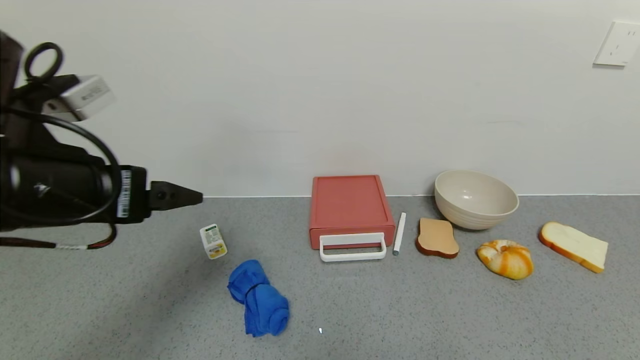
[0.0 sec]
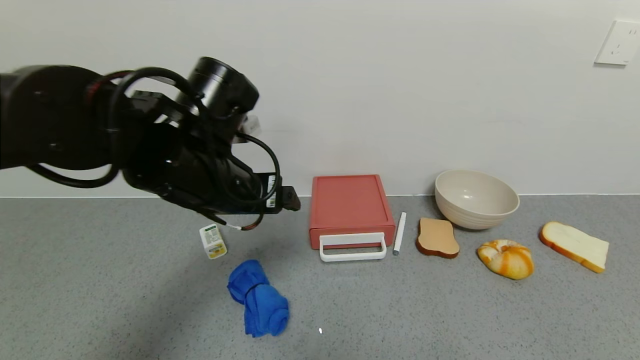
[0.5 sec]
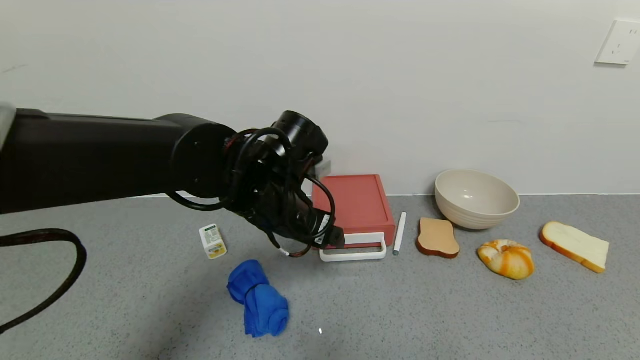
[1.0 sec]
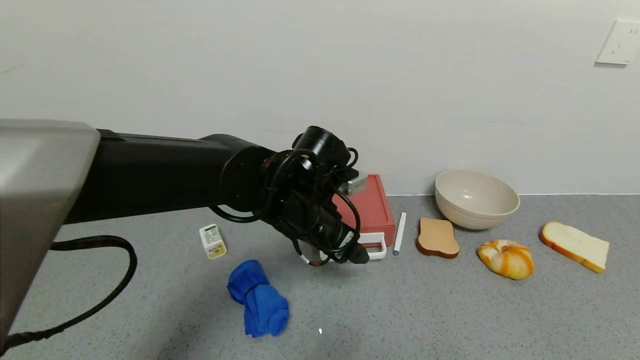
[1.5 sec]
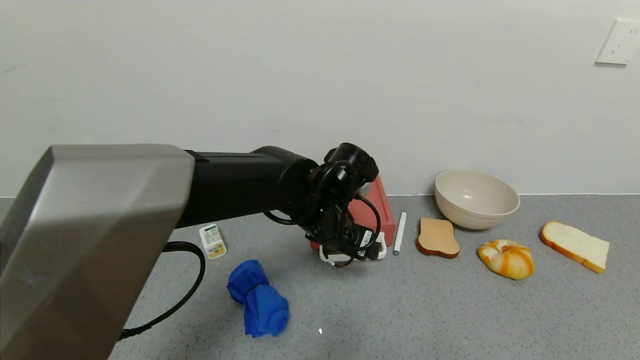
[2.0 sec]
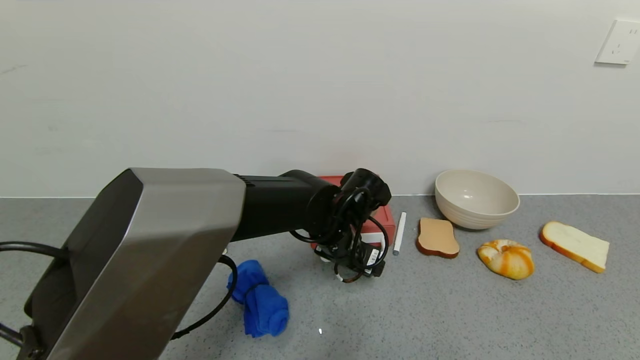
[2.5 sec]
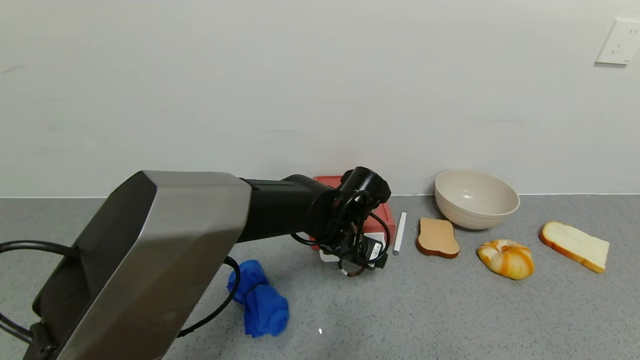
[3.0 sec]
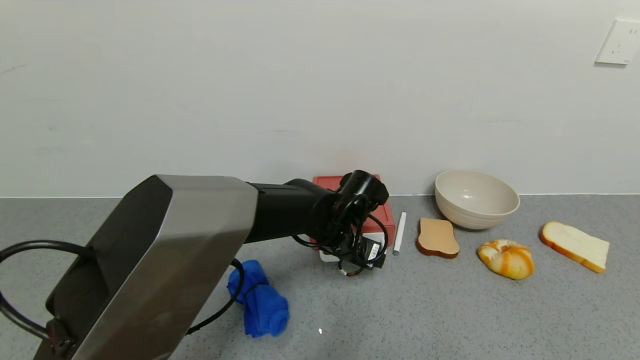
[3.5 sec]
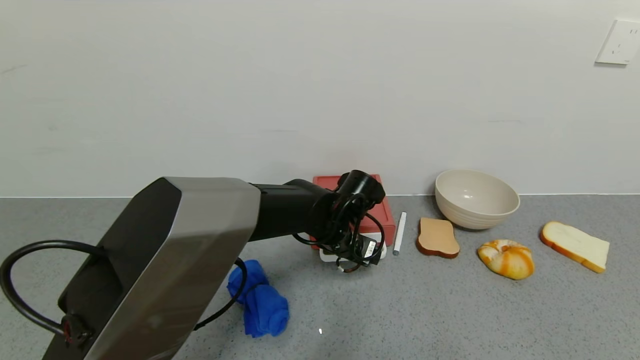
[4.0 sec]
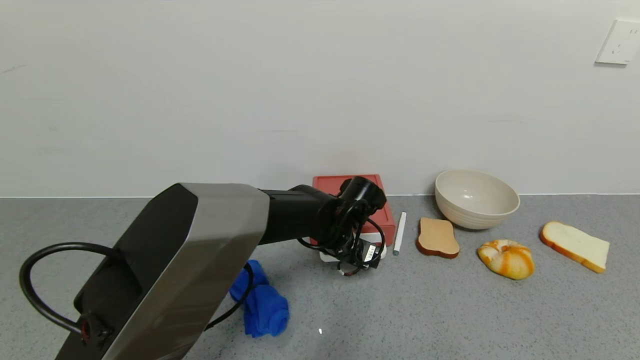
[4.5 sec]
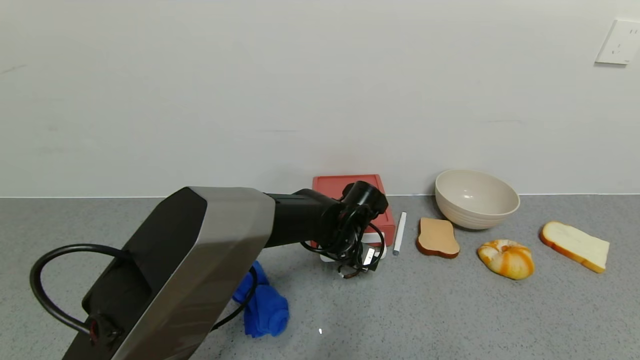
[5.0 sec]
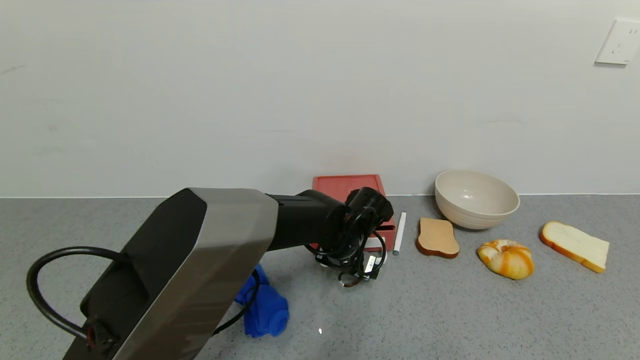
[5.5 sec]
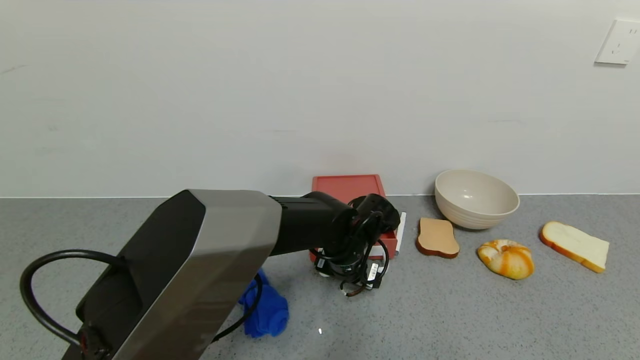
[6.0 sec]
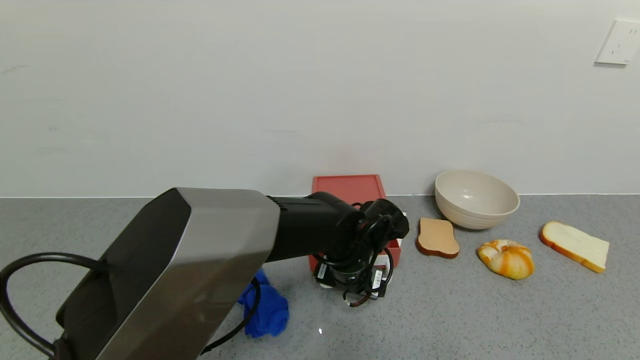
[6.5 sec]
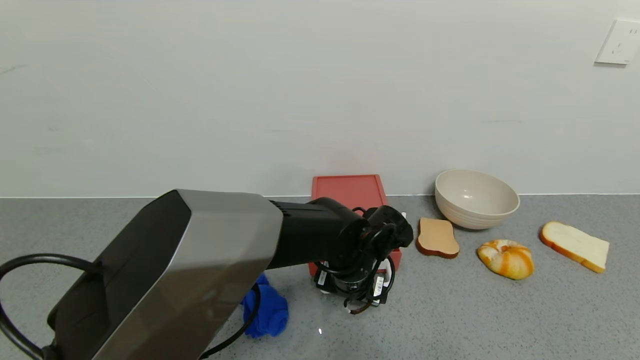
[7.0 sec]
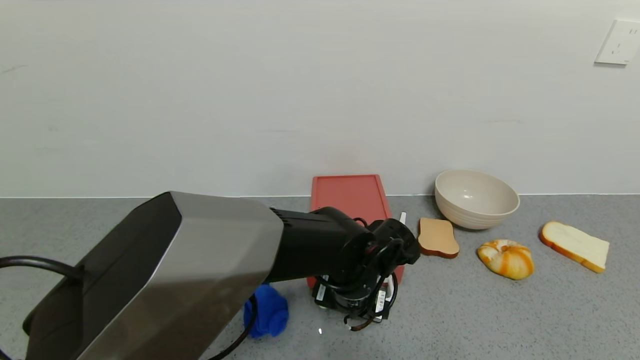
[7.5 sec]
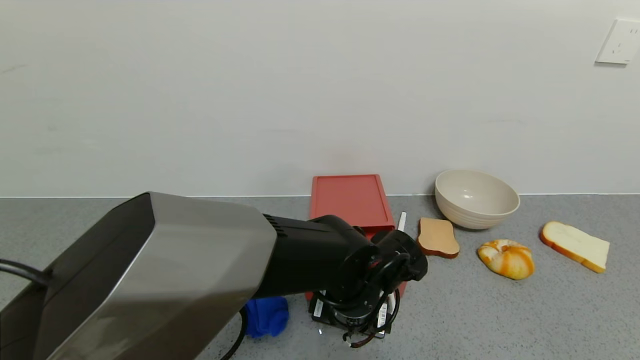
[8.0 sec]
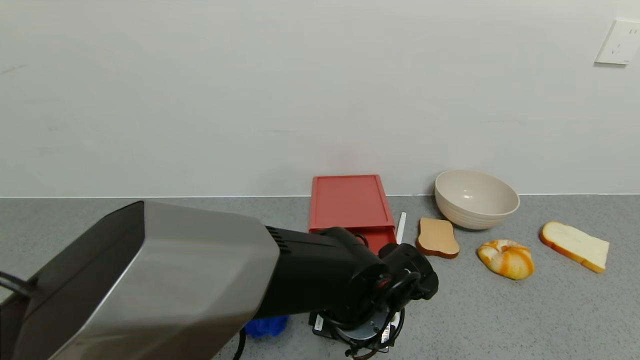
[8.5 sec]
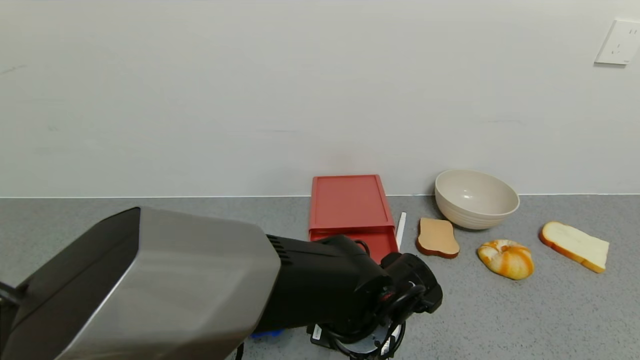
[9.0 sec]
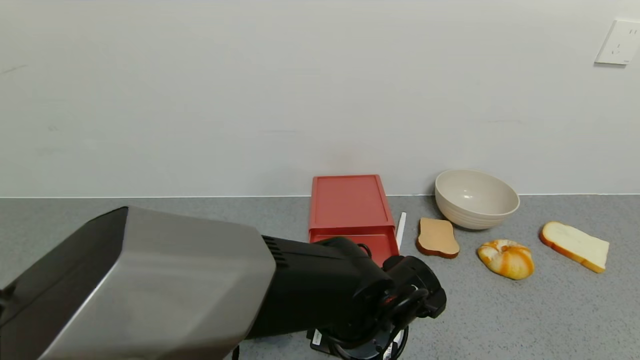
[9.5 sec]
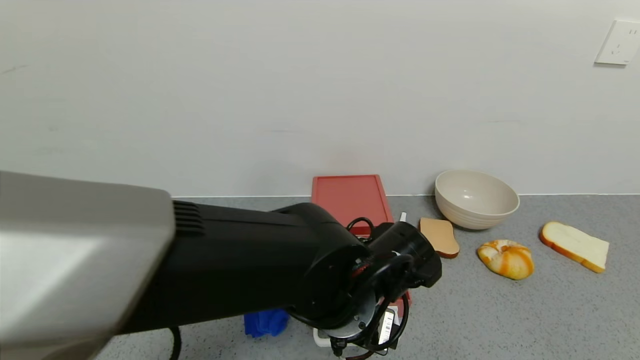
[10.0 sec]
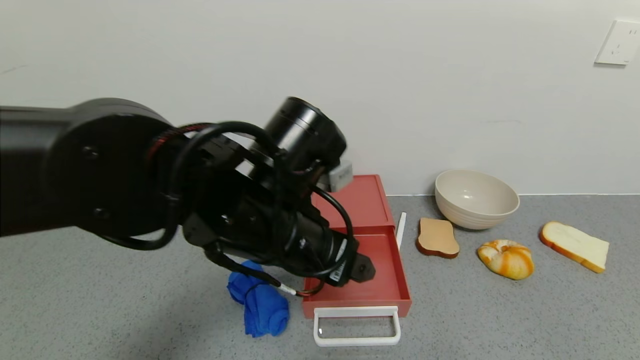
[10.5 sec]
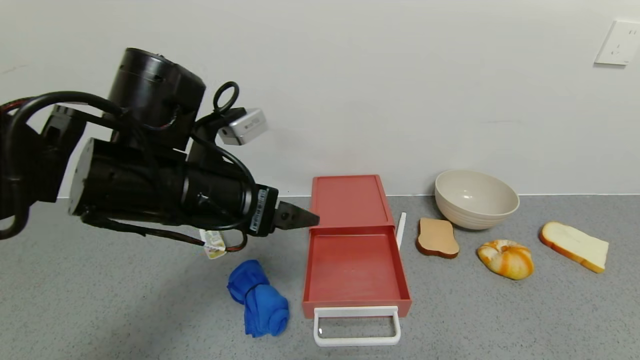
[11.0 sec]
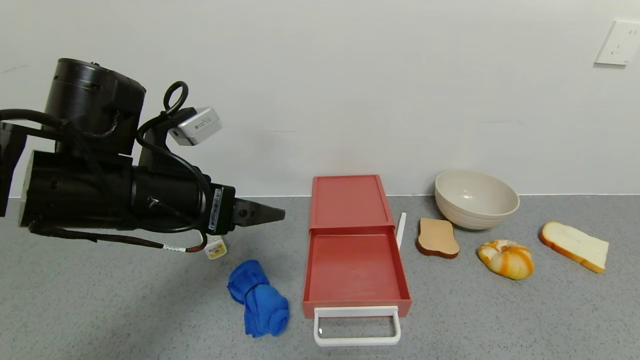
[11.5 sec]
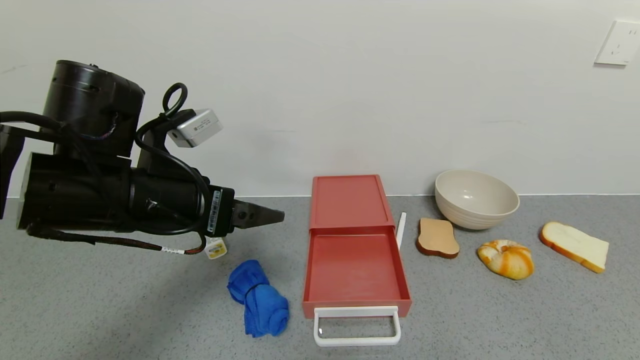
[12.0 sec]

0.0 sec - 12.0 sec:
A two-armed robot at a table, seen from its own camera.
Task of the whole recording: use the gripper to open the drawer and close the red drawer.
Step, 0.0 sec - 10.0 sec: Open the red drawer with the left gripper.
0.0 sec - 2.0 sec: The left gripper travels to the right, forward and downward by some 30 cm.
2.0 sec - 4.0 sec: The left gripper travels downward by approximately 5 cm.
4.0 sec - 6.0 sec: The grippers make only small movements.
6.0 sec - 8.0 sec: The left gripper is displaced backward by approximately 10 cm.
8.0 sec - 10.0 sec: The left gripper shifts by about 5 cm.
10.0 sec - 12.0 sec: The left gripper travels to the left and upward by about 25 cm.

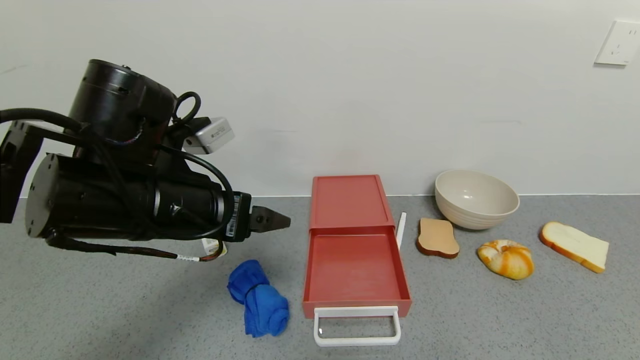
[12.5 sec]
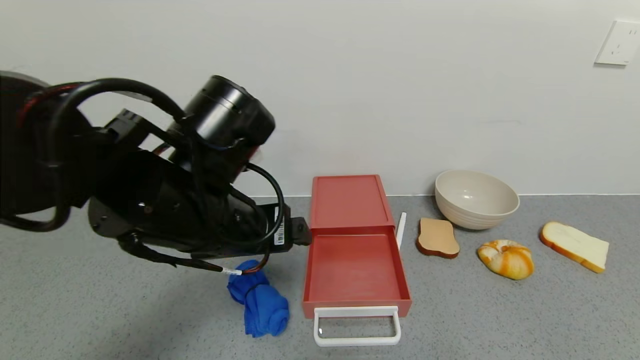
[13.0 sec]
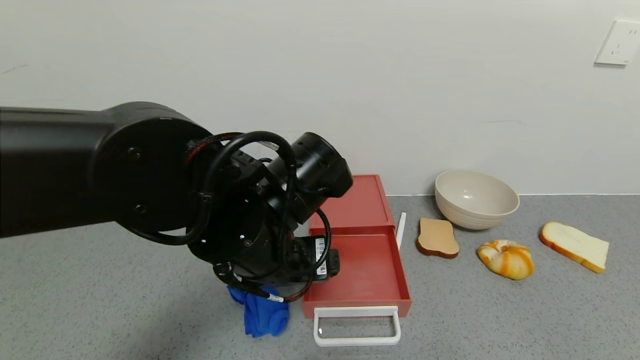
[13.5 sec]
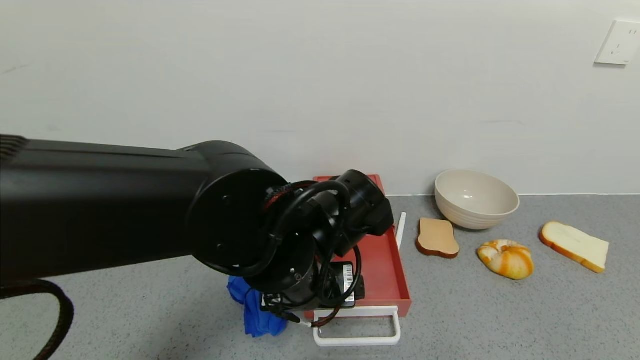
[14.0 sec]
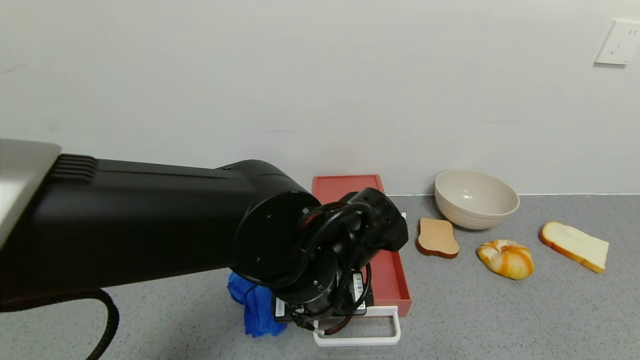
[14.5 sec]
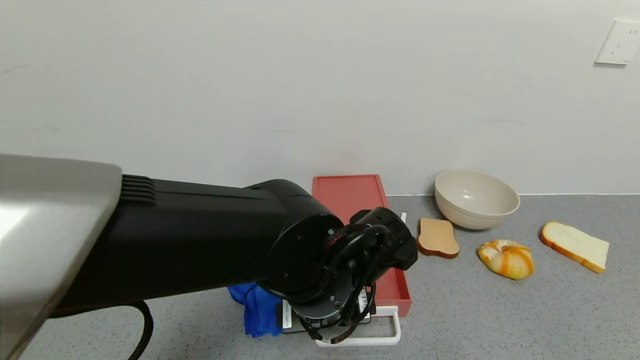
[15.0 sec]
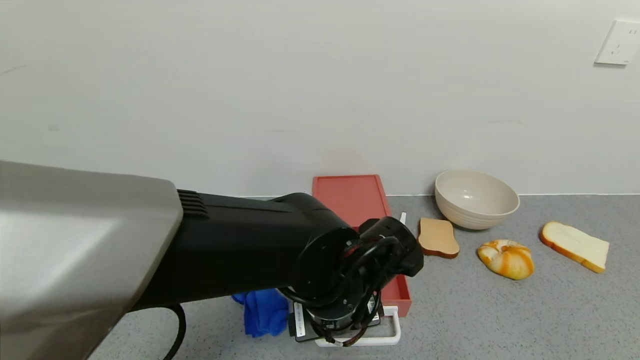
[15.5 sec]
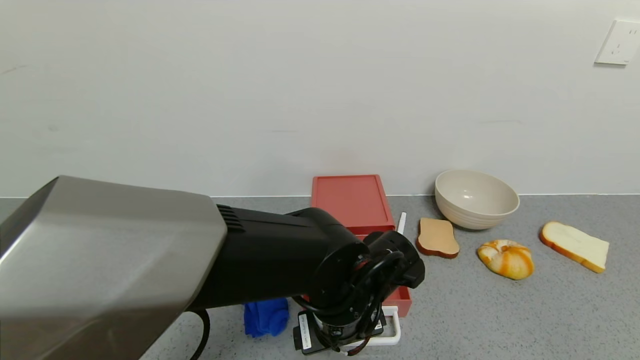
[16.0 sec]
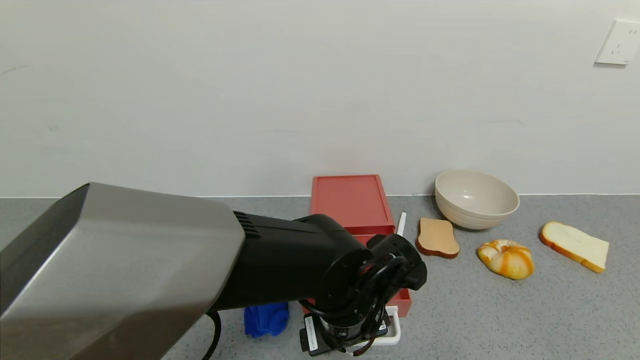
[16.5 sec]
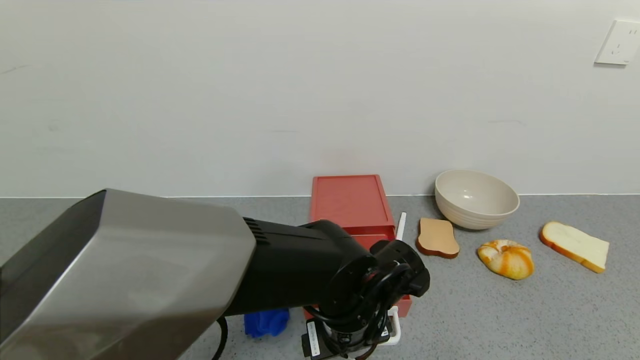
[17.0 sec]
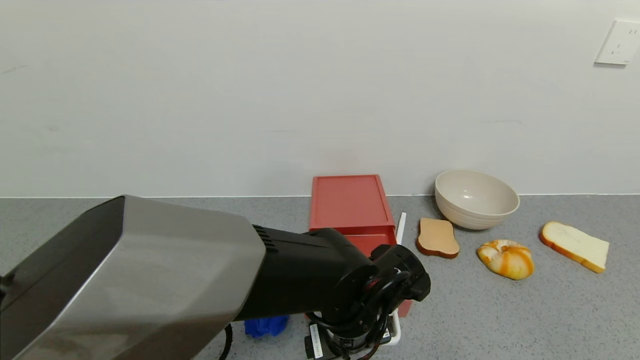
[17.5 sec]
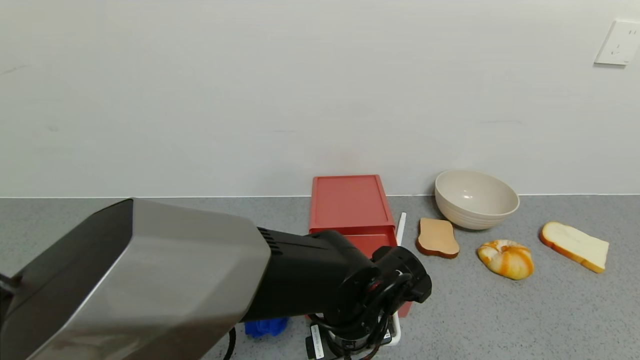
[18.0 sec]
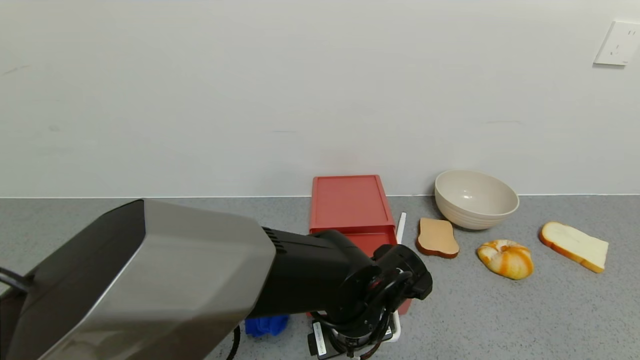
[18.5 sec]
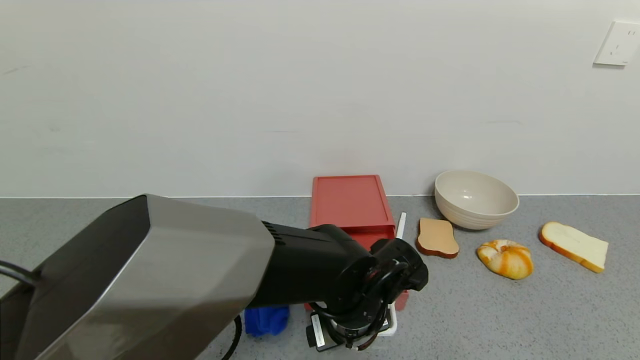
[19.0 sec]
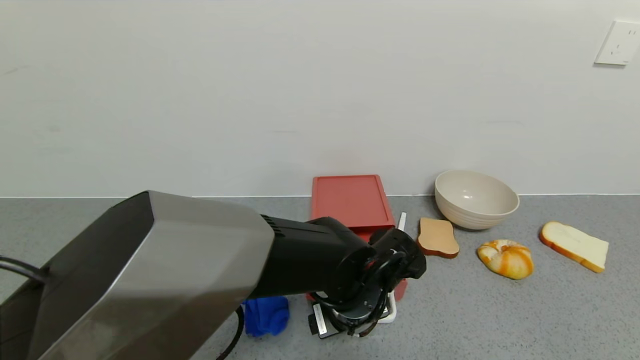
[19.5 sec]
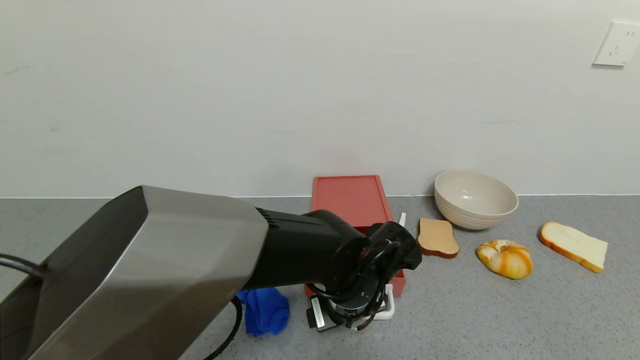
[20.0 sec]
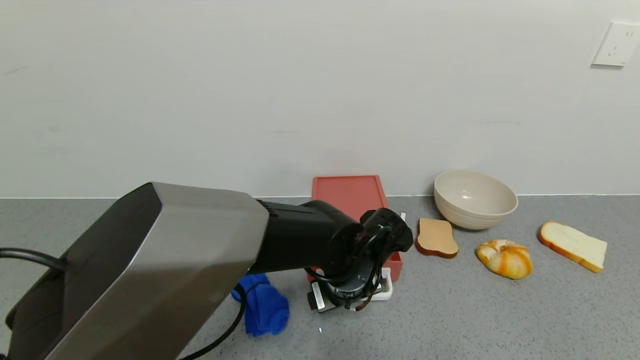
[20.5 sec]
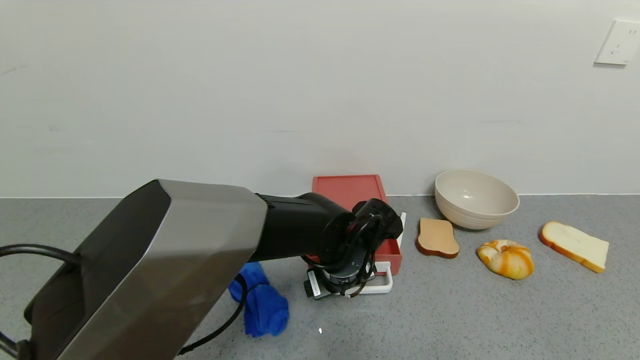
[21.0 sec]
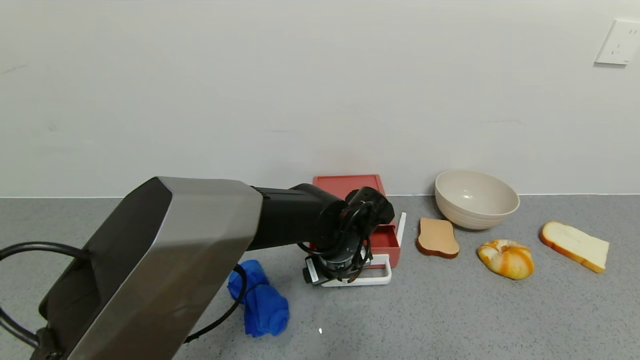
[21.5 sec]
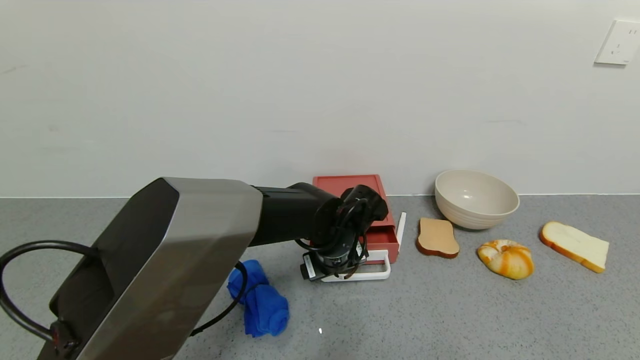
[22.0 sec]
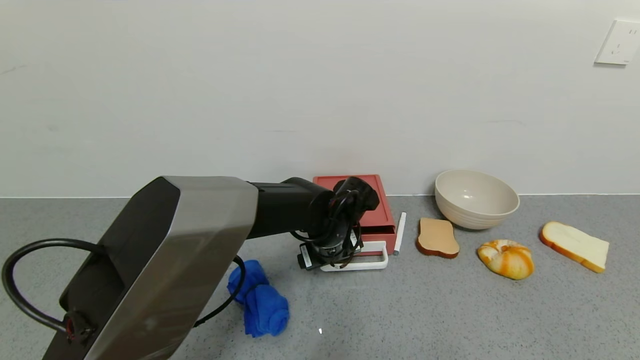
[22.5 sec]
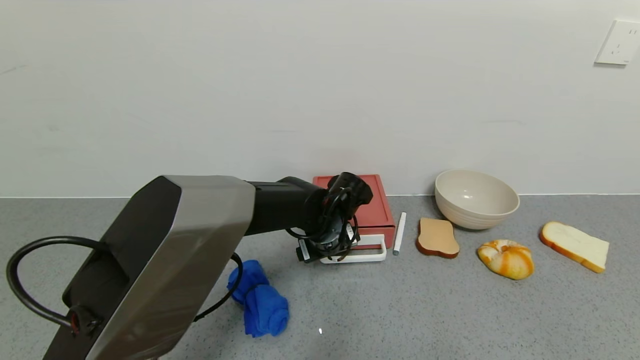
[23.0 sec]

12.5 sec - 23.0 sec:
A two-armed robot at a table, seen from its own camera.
Task of the whole recording: use the gripper to open the drawer and close the red drawer.
12.5 sec - 14.5 sec: The left gripper heads to the right and downward, covering about 15 cm.
14.5 sec - 16.5 sec: The left gripper moves downward, about 5 cm.
16.5 sec - 19.0 sec: The grippers make only small movements.
19.0 sec - 21.0 sec: The left gripper travels forward by approximately 5 cm.
21.0 sec - 23.0 sec: The left gripper is displaced forward by roughly 5 cm.
